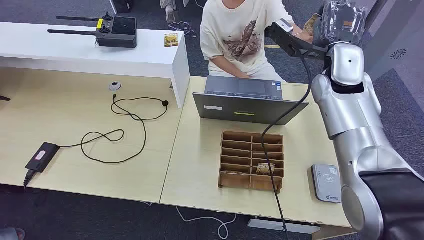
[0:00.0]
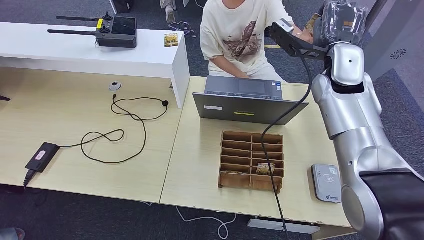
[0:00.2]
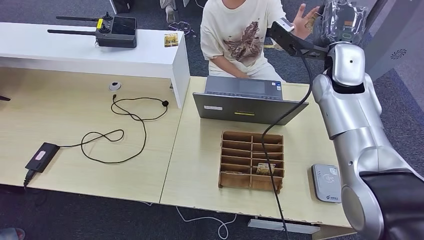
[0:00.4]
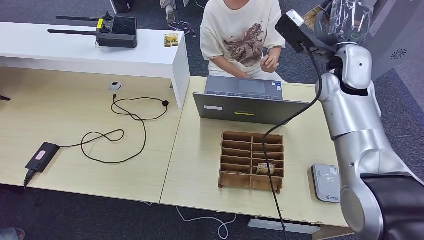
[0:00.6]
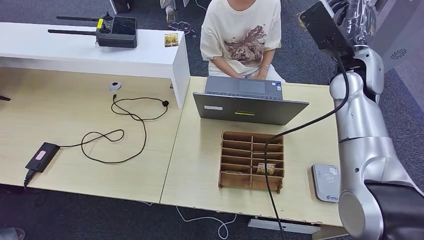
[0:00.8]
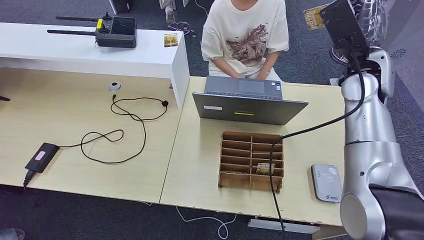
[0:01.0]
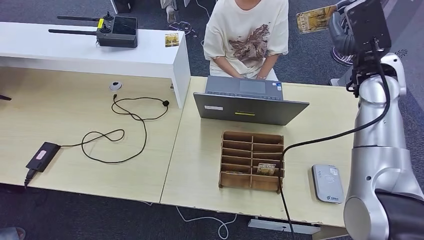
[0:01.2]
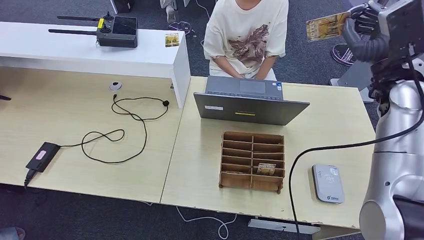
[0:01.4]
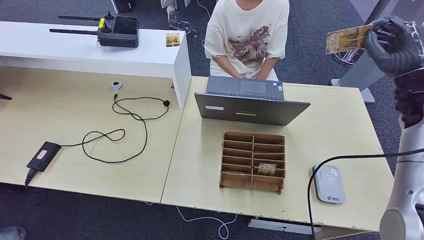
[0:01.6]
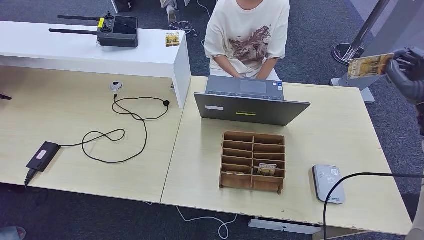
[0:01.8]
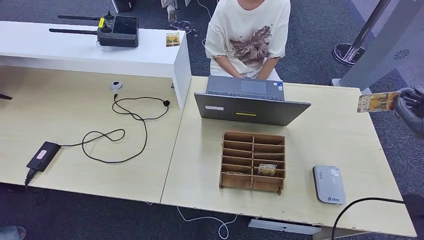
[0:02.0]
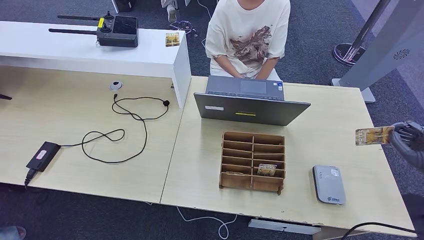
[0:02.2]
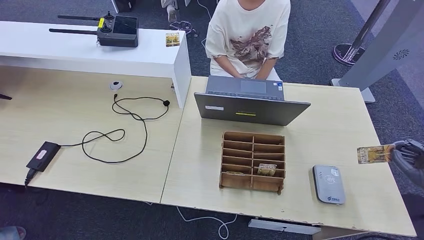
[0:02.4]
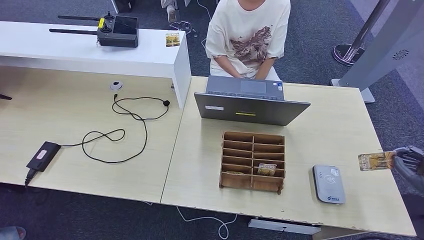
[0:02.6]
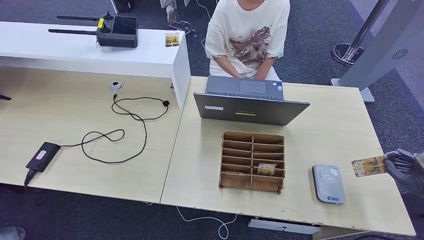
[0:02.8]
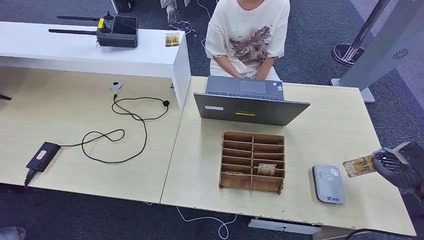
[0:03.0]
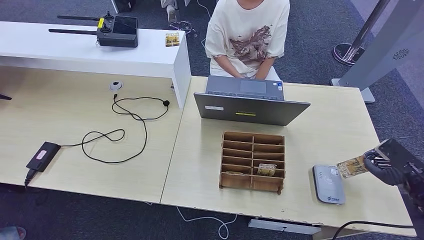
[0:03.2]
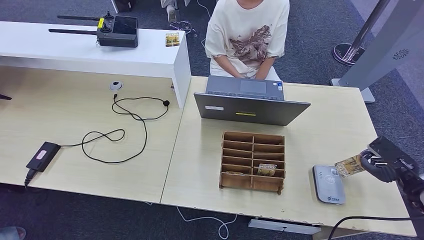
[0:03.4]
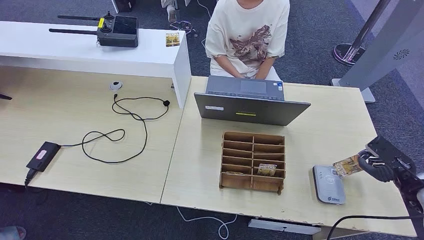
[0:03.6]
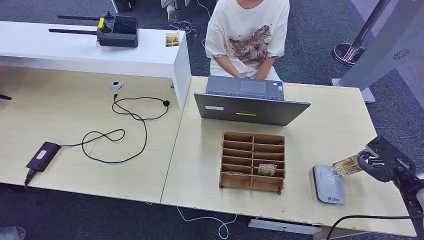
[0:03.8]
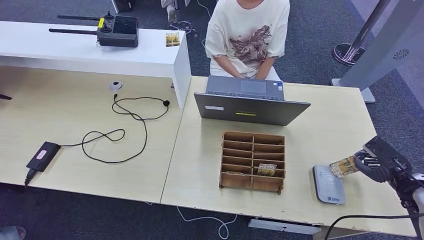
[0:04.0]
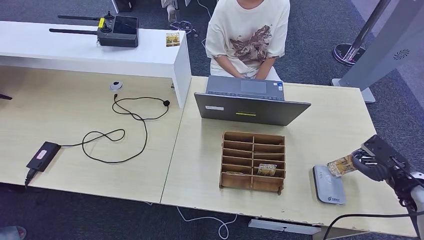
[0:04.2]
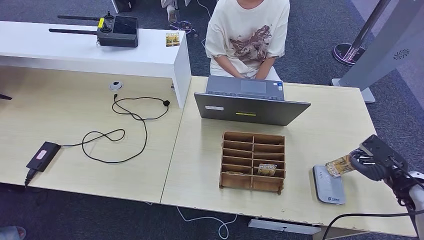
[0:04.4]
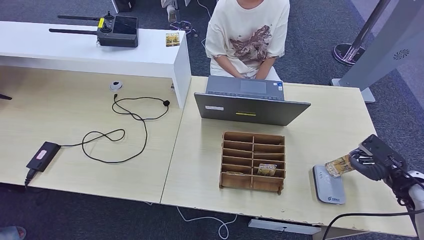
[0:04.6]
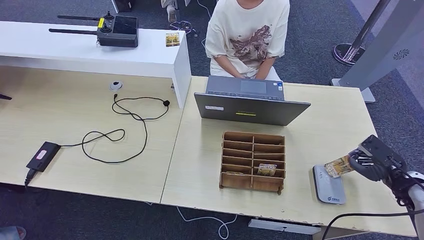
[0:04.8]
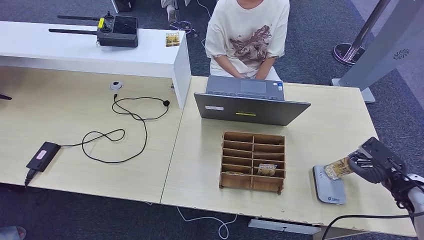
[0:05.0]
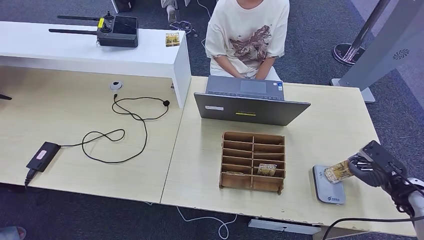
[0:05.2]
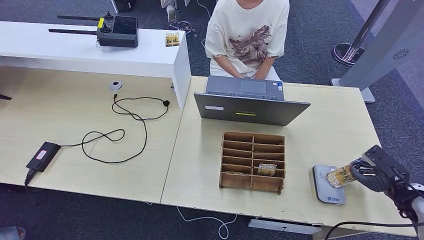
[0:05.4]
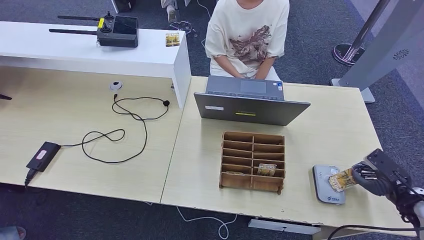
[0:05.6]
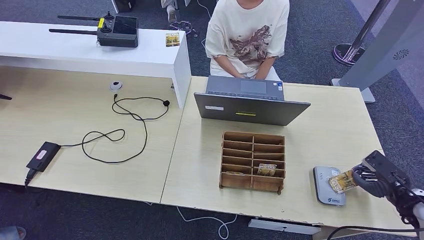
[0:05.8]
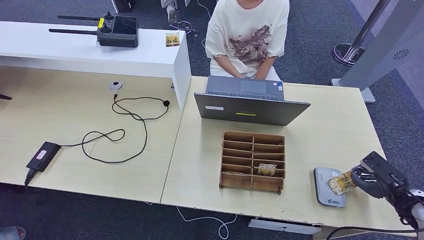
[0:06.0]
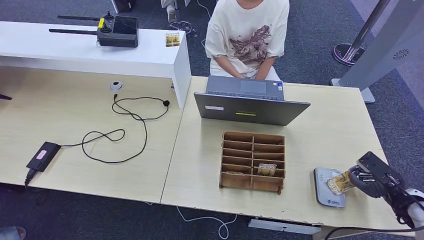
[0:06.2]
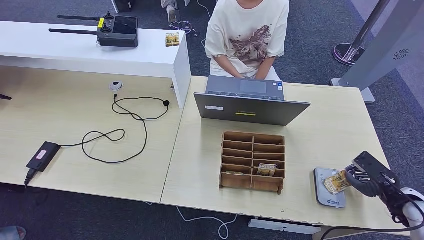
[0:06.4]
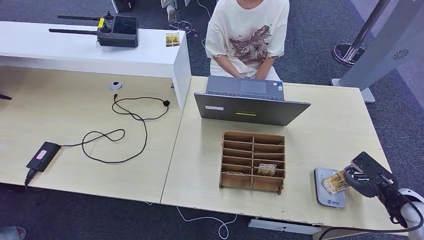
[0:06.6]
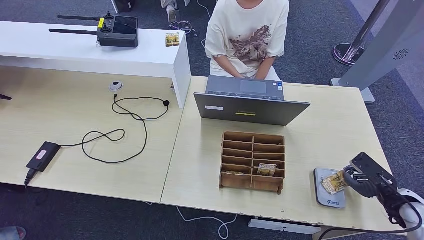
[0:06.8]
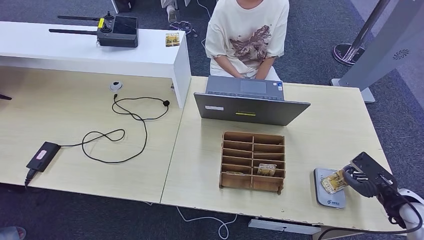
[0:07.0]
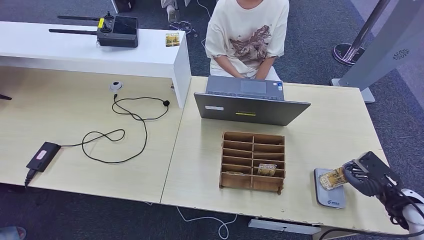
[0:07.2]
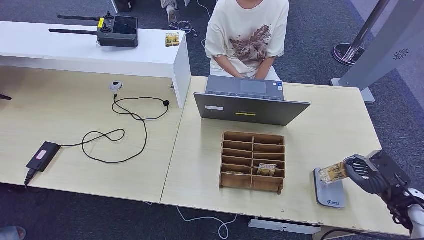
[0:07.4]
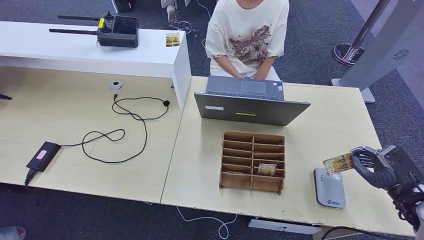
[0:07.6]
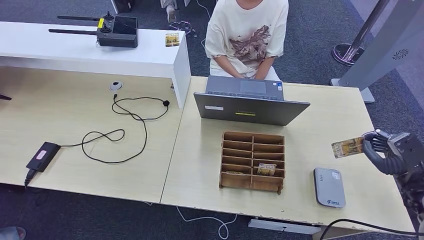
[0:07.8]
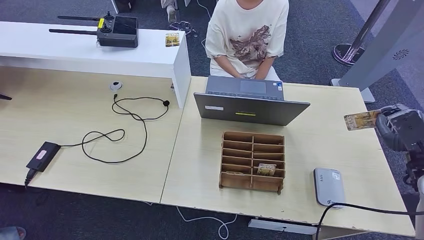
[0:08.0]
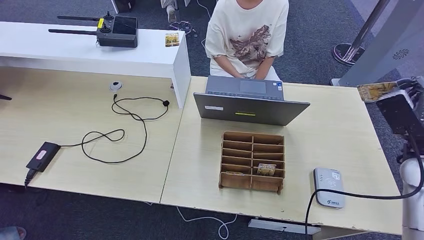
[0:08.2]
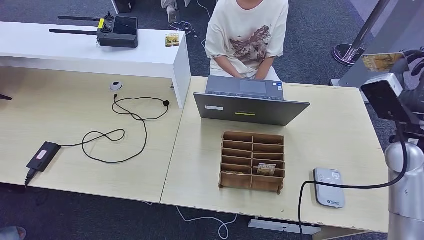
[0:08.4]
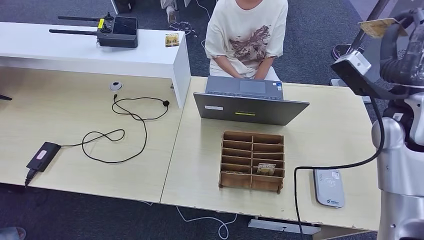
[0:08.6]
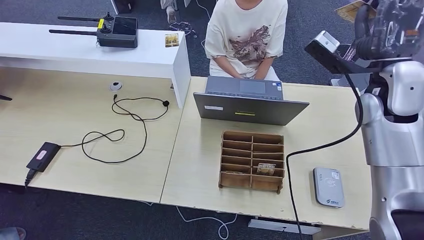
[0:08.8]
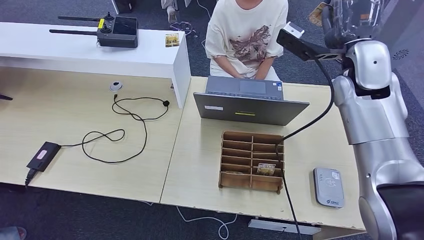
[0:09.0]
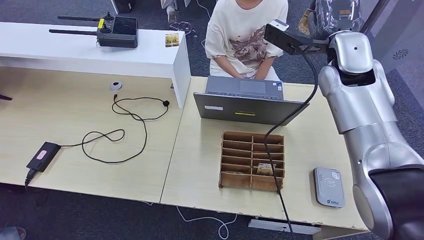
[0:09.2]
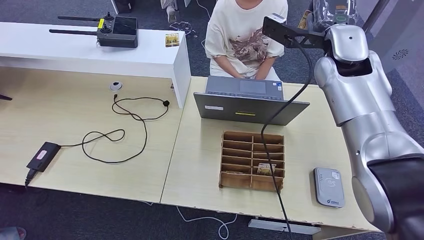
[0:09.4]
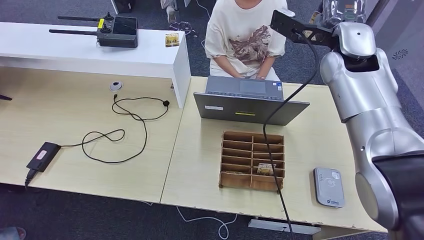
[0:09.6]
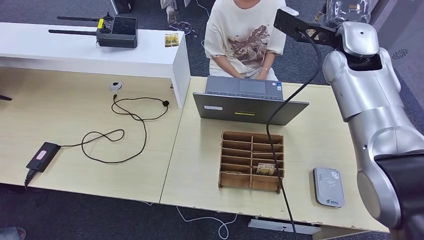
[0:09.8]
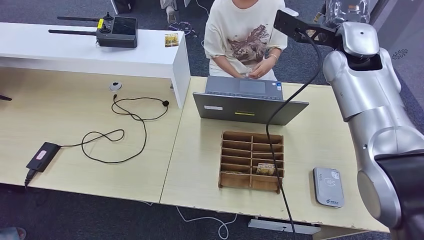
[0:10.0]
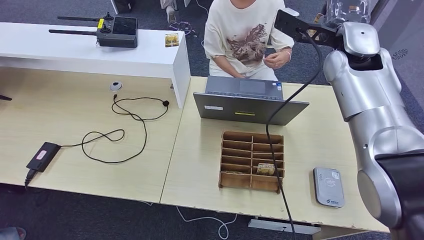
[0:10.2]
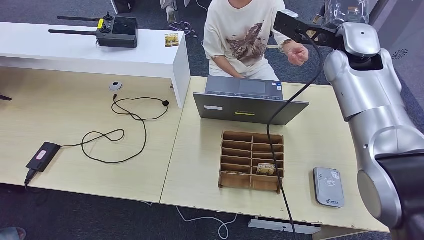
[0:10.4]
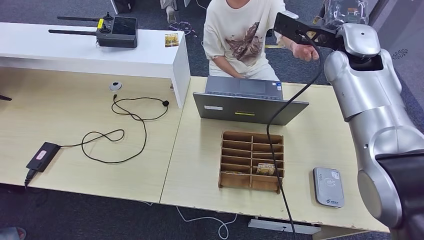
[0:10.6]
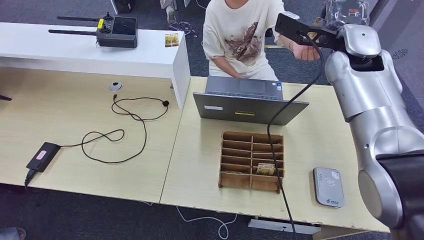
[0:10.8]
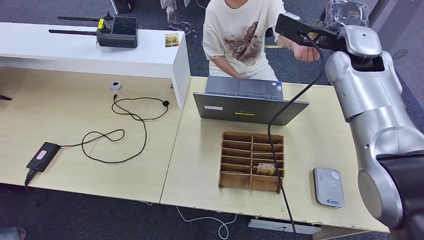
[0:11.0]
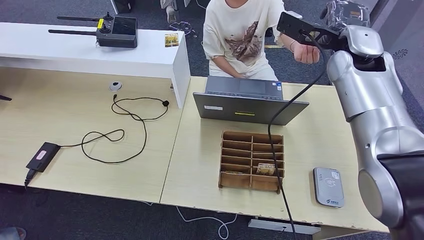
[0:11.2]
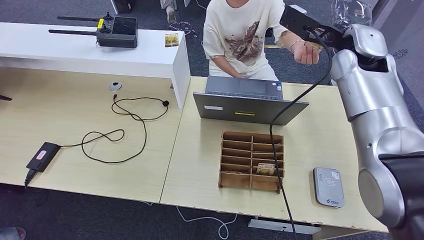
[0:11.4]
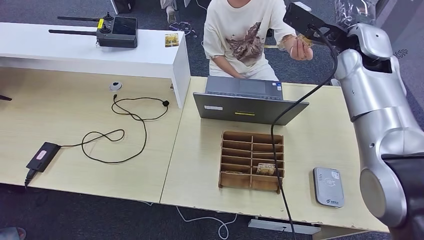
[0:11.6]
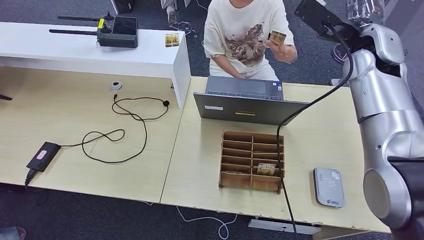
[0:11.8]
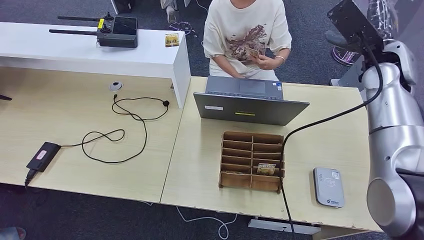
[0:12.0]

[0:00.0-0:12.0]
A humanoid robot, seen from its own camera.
Step, 0:00.0 to 0:01.8: Take the ID card from the person's hand.
Step, 0:02.2 to 0:08.2: Place the ID card on the card reader.
0:01.6 to 0:03.0: The right hand shifts approximately 30 cm backward, downward and to the right.
0:03.0 to 0:06.0: There are only small adjustments of the hands.
0:07.6 to 0:09.0: The right hand heads upward, forward and to the left, covering approximately 40 cm.
0:10.4 to 0:12.0: The right hand moves to the right, roughly 5 cm.

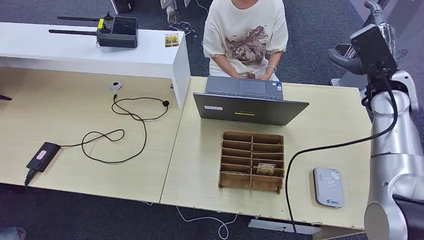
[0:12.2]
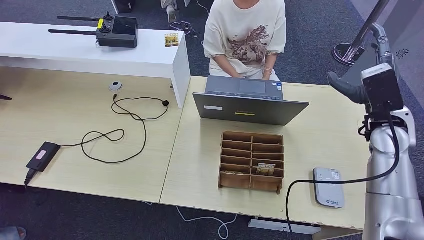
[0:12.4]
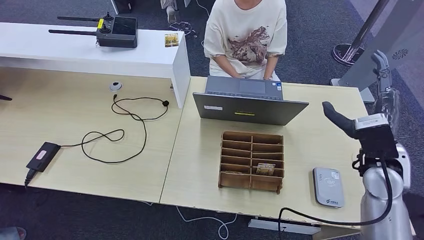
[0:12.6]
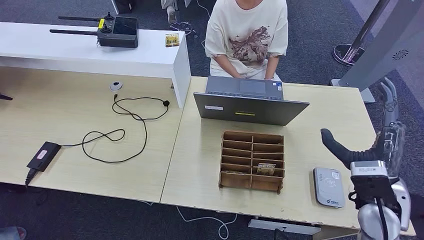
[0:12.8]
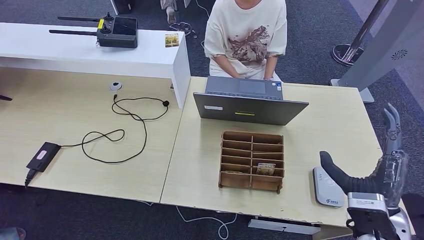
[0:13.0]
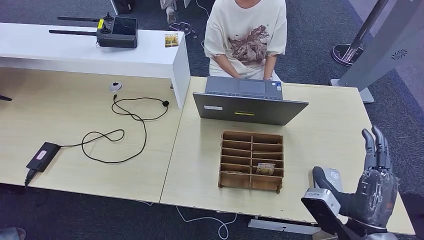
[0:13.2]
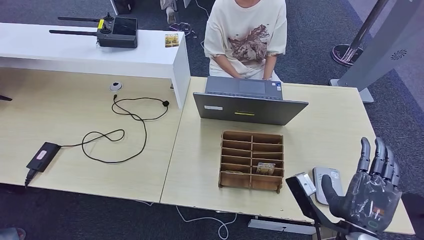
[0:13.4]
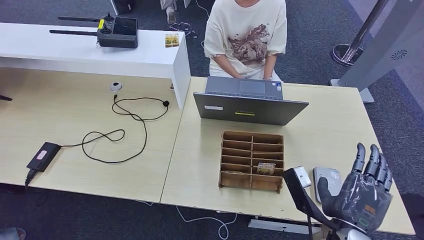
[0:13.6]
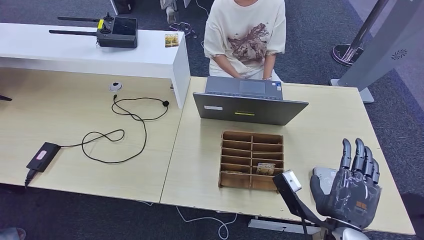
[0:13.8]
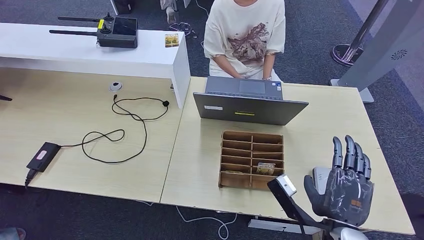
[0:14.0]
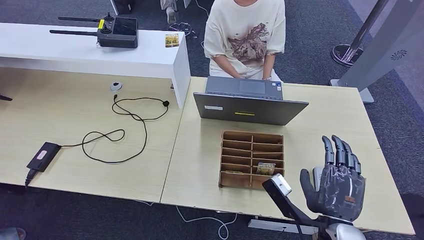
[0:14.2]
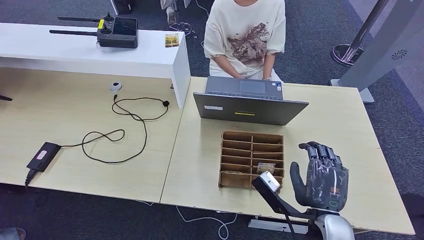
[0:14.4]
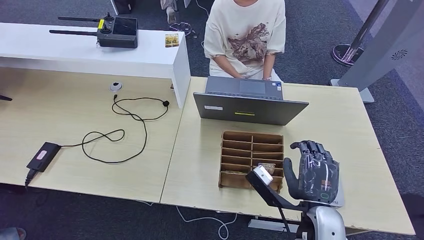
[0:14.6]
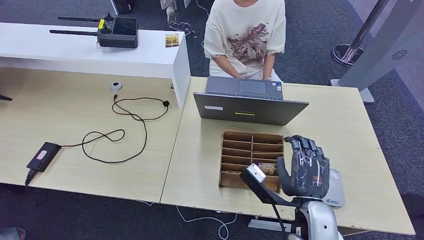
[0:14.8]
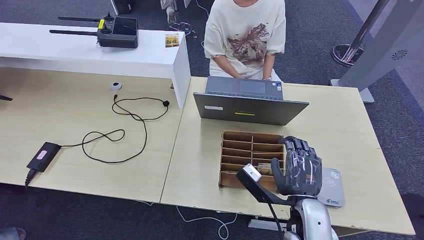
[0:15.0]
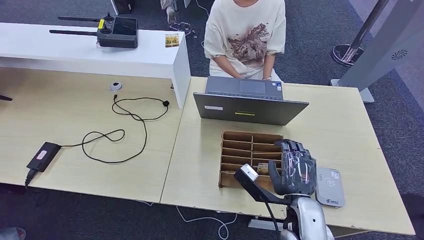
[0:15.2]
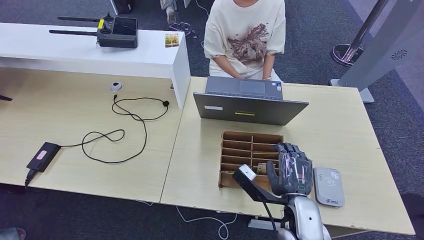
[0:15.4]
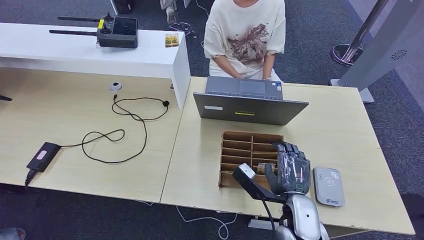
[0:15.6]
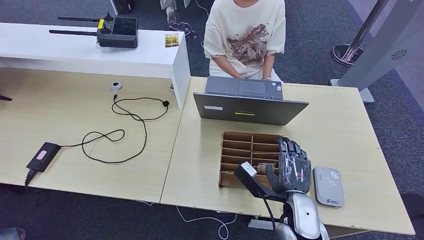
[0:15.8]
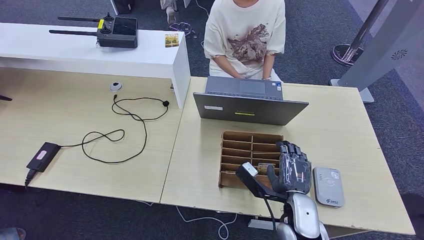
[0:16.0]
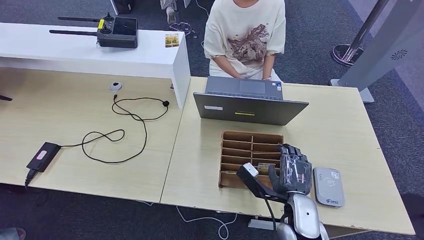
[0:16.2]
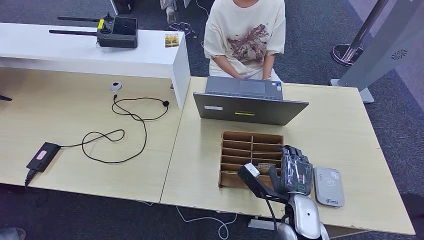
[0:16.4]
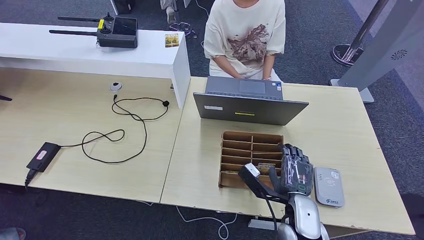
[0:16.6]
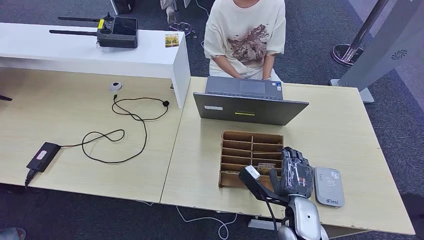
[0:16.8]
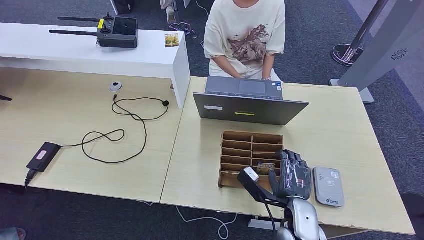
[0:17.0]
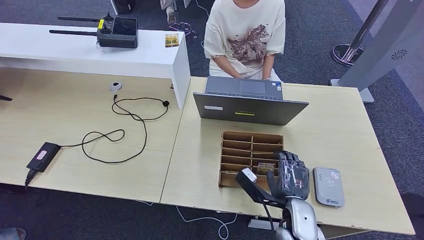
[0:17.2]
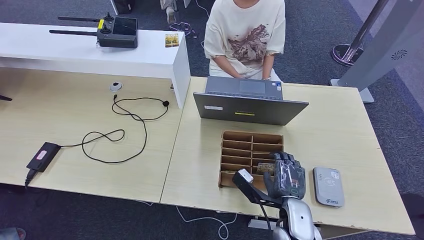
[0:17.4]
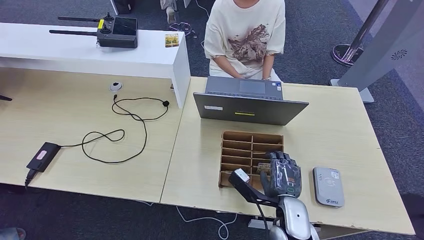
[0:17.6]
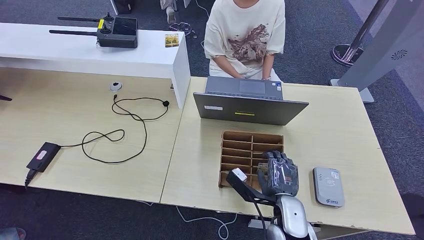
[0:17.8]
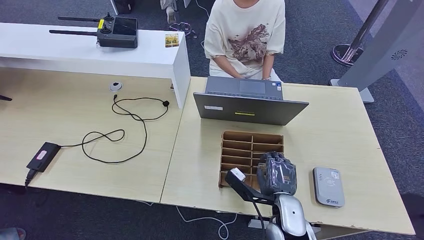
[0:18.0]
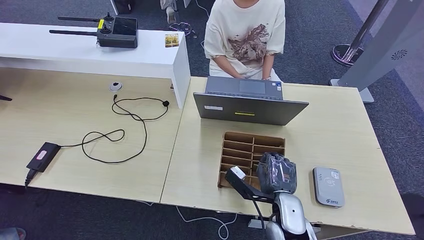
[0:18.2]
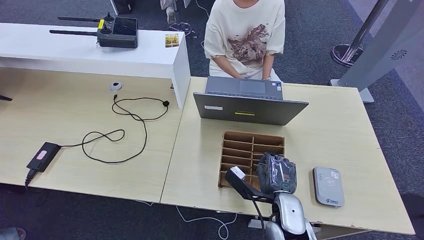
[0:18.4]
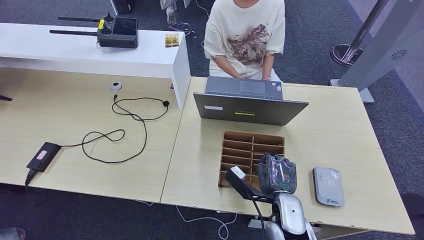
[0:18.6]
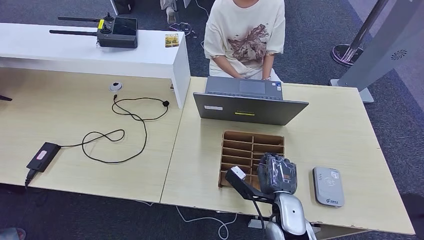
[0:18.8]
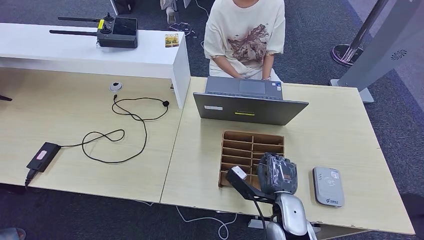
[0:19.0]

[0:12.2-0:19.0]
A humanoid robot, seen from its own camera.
0:12.2 to 0:13.6: The right hand goes some 35 cm backward, to the left and downward.
0:13.6 to 0:15.0: The right hand shifts by some 5 cm.
0:15.0 to 0:17.6: The hands move only a little.
0:17.6 to 0:19.0: Neither hand changes place.
